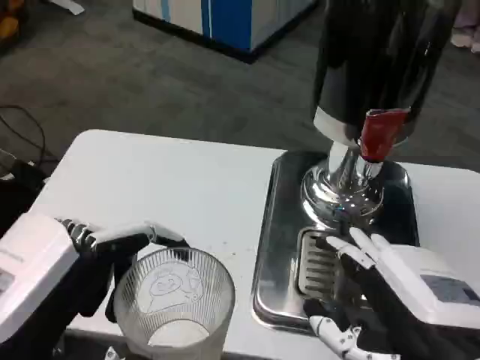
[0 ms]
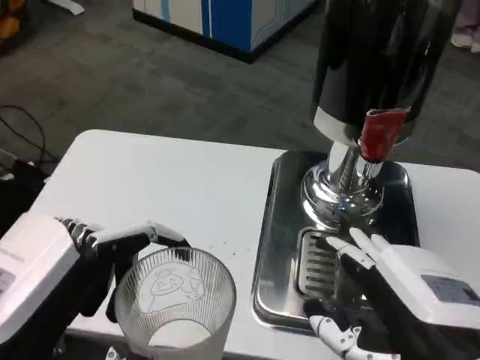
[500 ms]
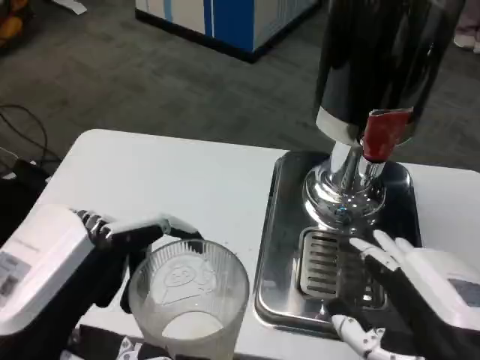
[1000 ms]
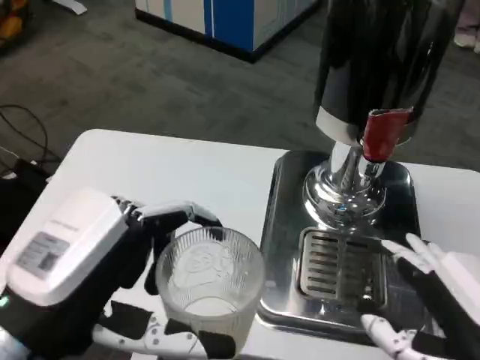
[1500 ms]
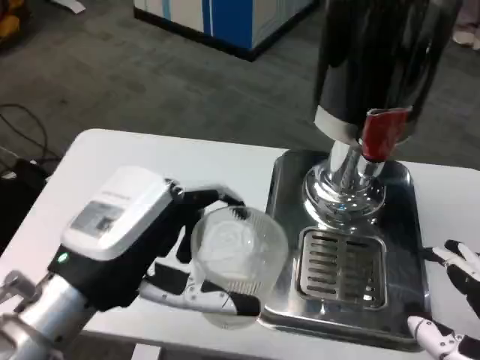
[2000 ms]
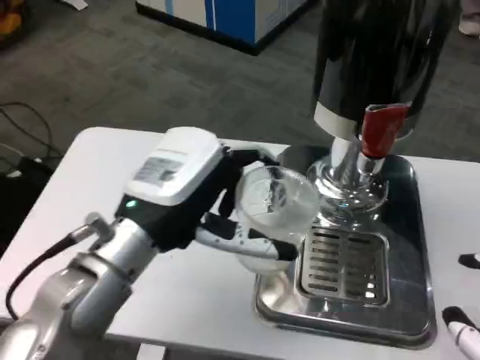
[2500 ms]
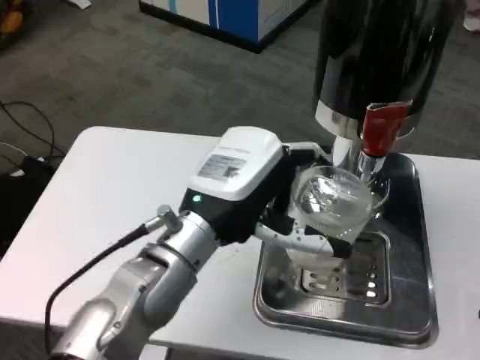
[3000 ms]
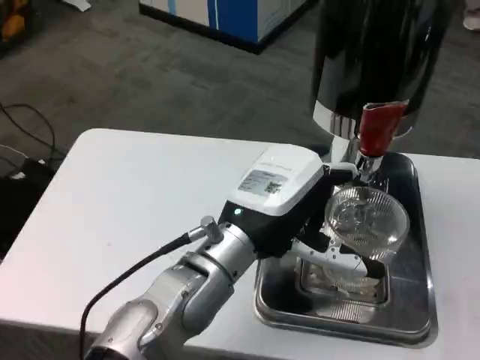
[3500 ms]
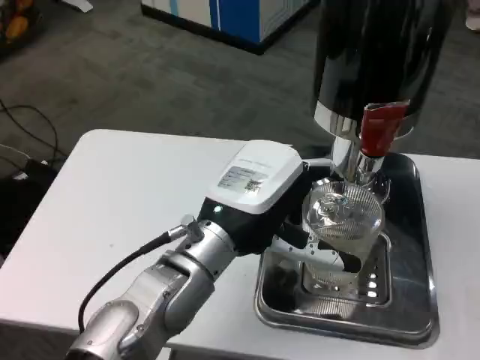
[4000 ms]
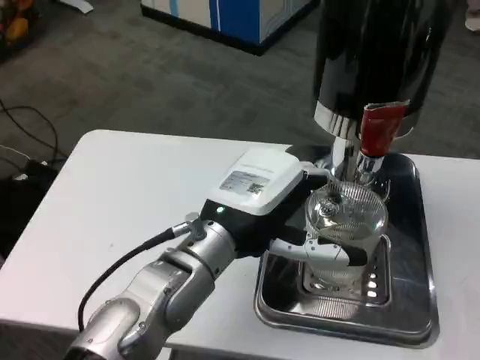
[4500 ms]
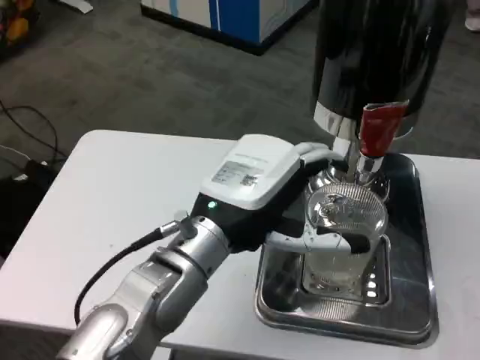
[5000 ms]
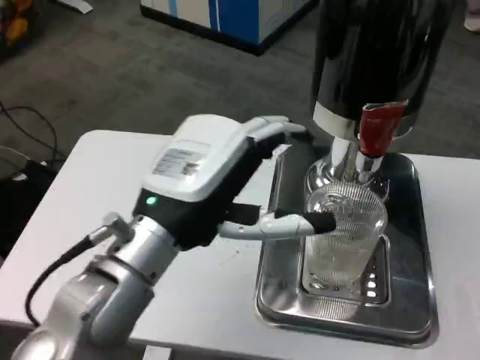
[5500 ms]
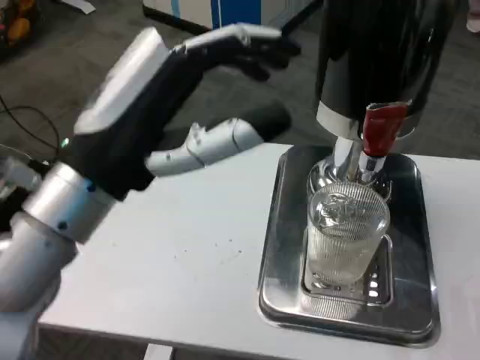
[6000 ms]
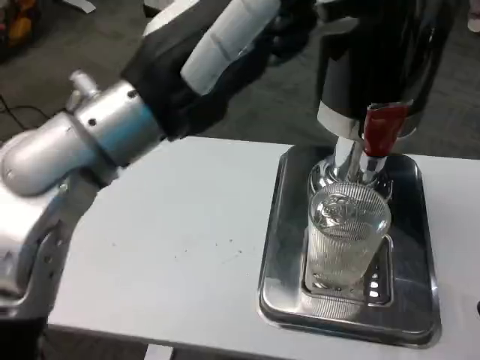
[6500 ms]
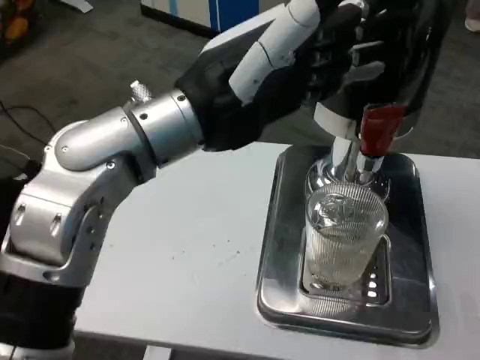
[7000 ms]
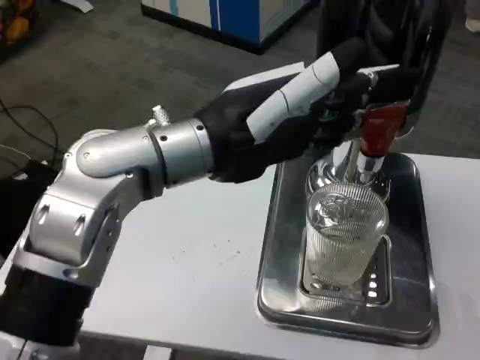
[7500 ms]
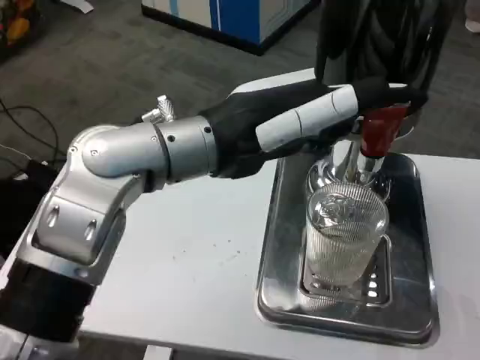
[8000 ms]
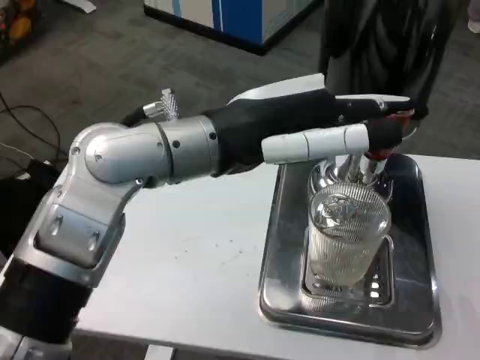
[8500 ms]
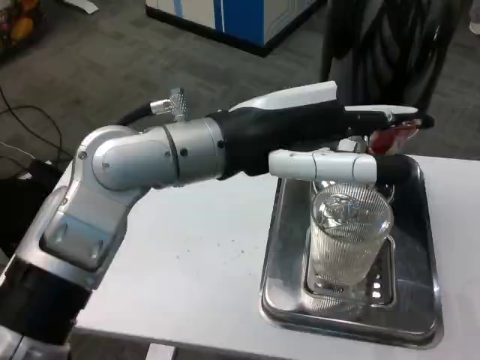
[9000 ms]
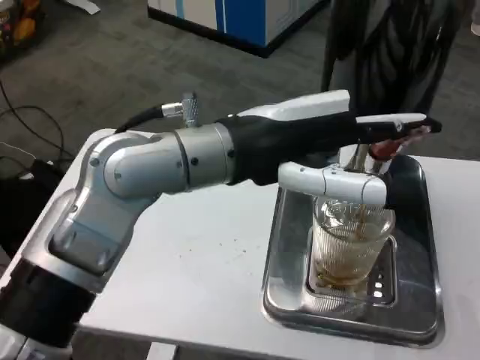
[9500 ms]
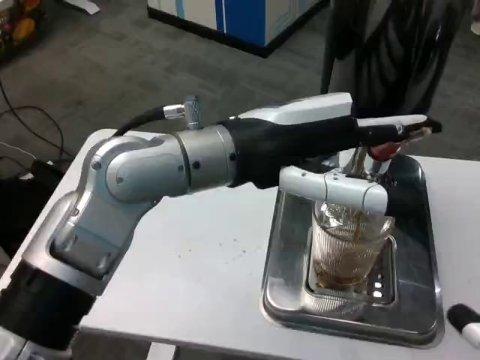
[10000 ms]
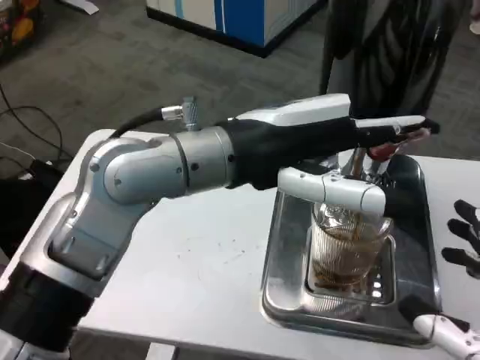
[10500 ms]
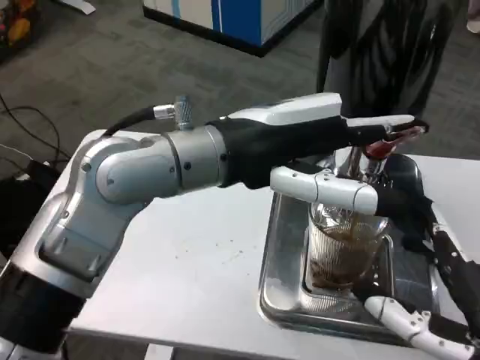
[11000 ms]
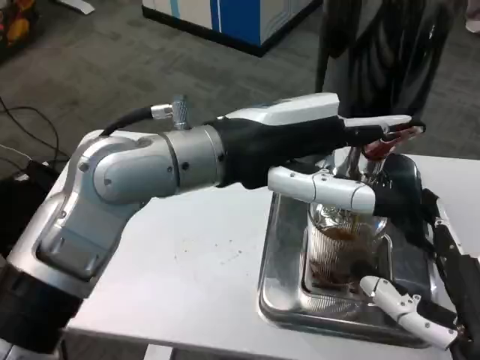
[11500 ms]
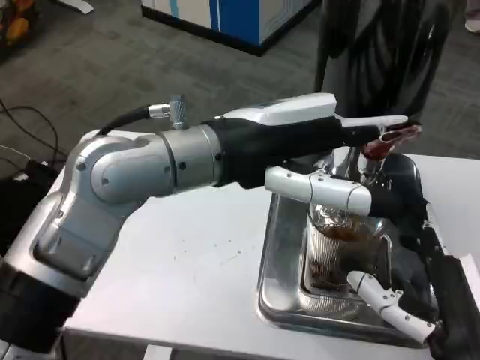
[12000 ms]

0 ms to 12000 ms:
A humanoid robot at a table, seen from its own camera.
Task of the whole recording: Grasp the cup under the faucet to collect the drink, then remove the cup.
0 ms to 2000 ms: The left hand travels forward by about 10 cm. The right hand goes roughly 5 cm to the right.
2000 ms to 4000 ms: The left hand travels to the right and forward by about 15 cm. The right hand travels to the right by roughly 5 cm.
4000 ms to 6000 ms: The left hand travels upward, to the left and backward by about 15 cm.
6000 ms to 8000 ms: The left hand heads forward and to the right, covering approximately 10 cm.
10000 ms to 12000 ms: The right hand moves to the left, forward and downward, roughly 15 cm.

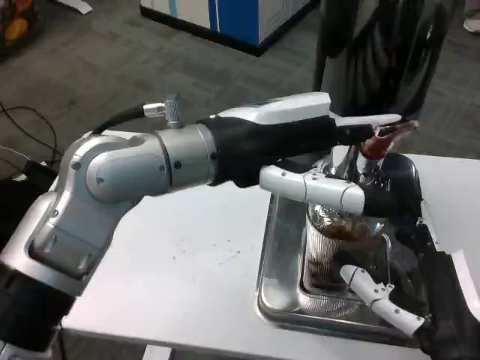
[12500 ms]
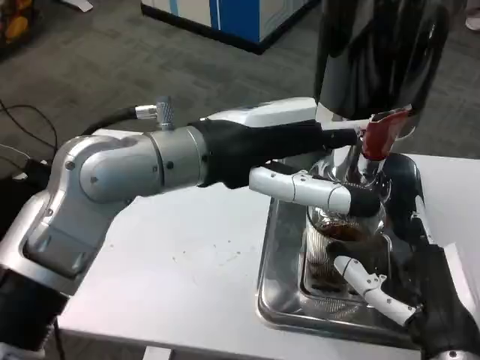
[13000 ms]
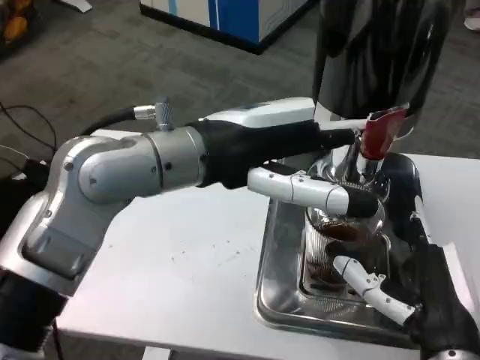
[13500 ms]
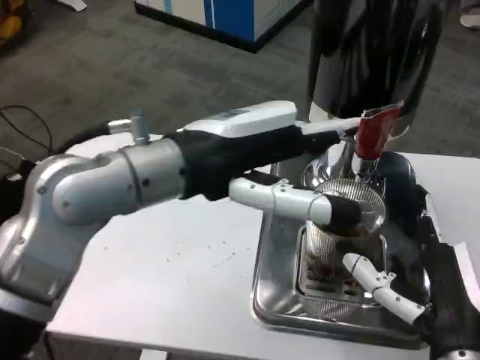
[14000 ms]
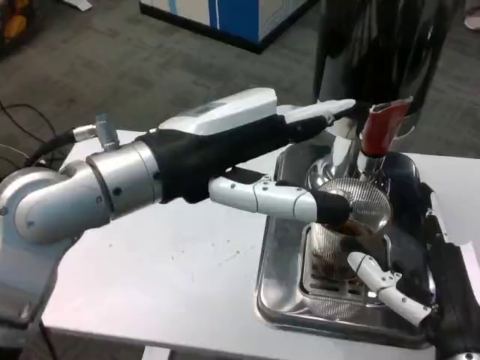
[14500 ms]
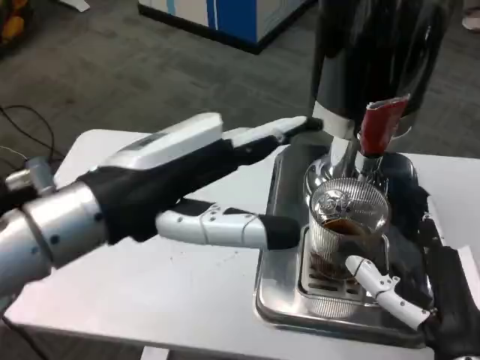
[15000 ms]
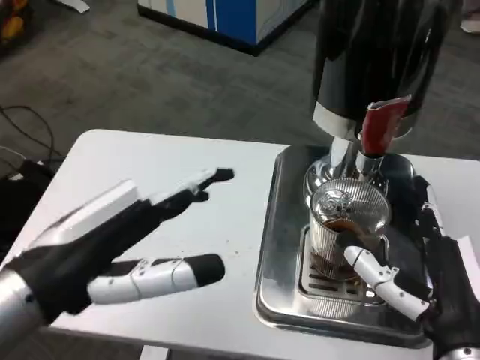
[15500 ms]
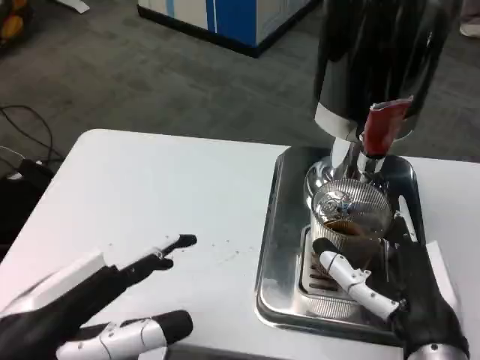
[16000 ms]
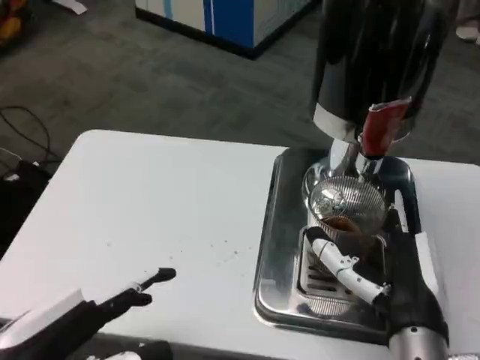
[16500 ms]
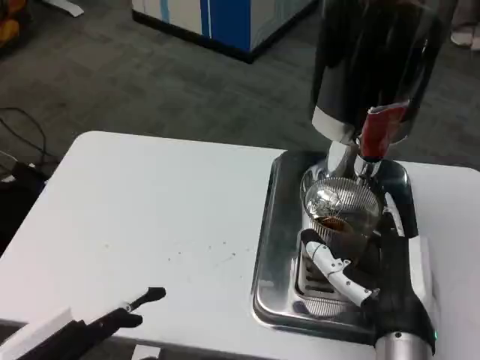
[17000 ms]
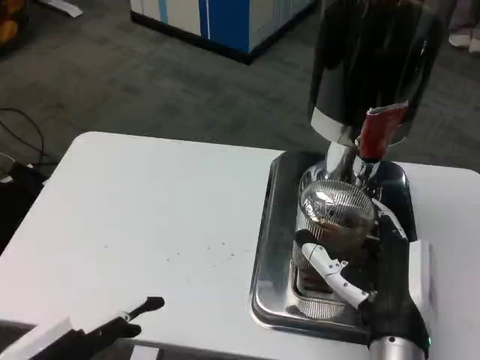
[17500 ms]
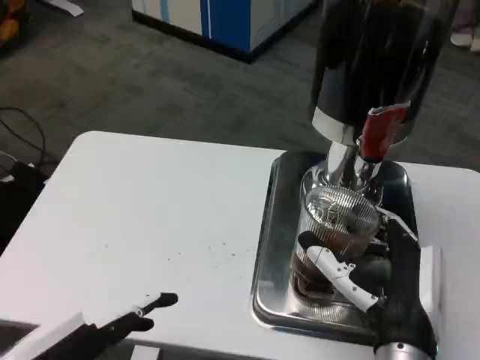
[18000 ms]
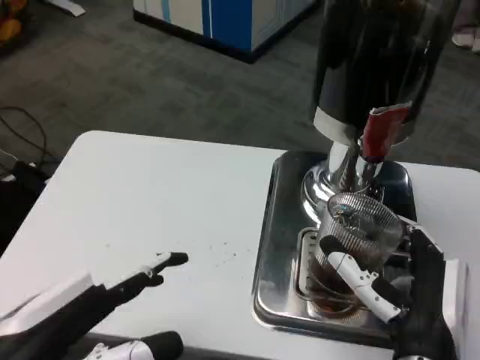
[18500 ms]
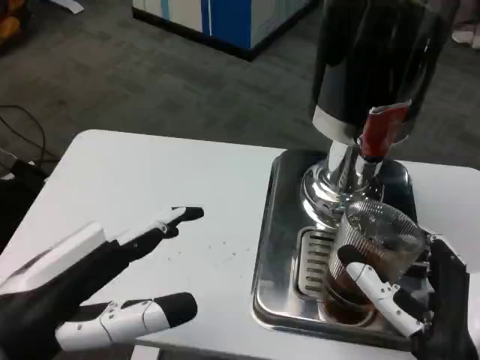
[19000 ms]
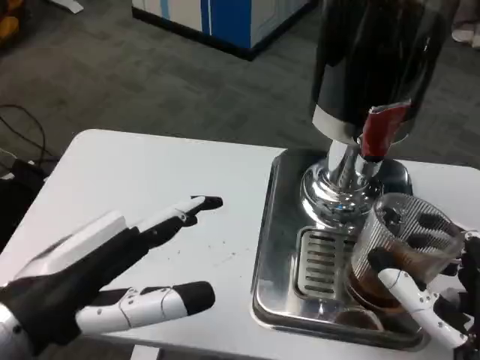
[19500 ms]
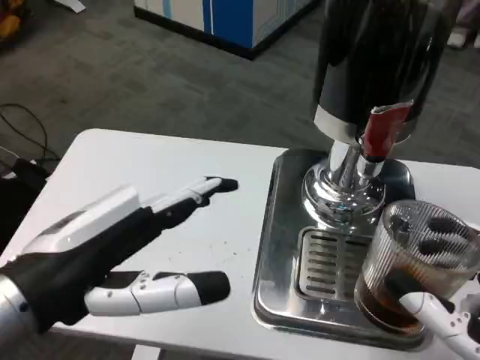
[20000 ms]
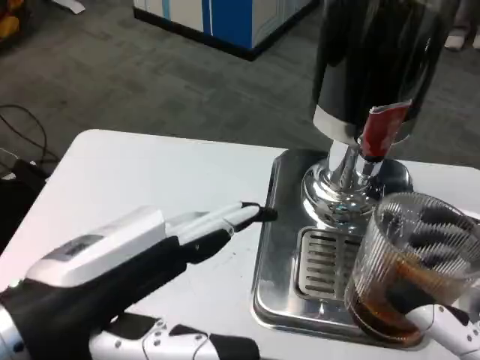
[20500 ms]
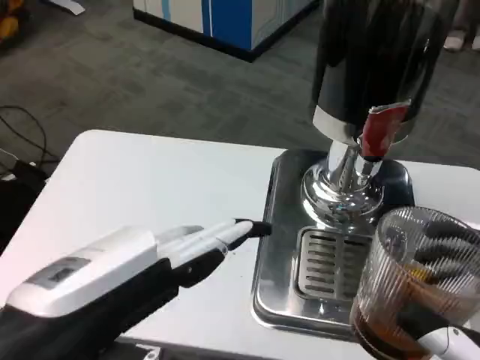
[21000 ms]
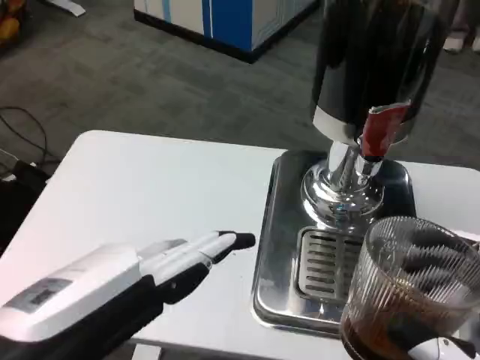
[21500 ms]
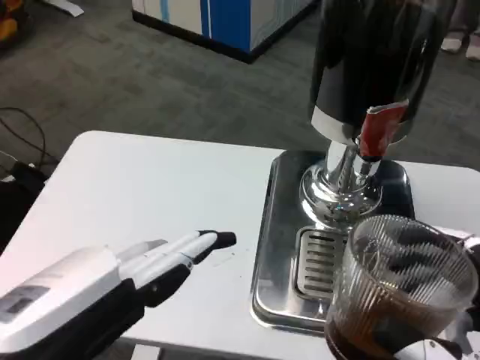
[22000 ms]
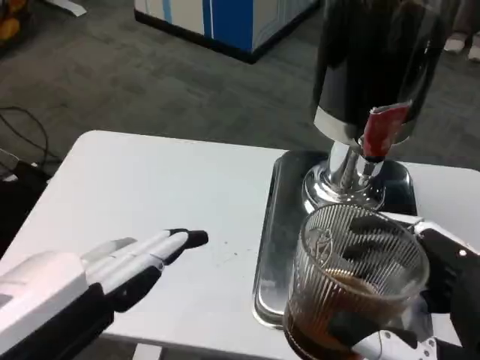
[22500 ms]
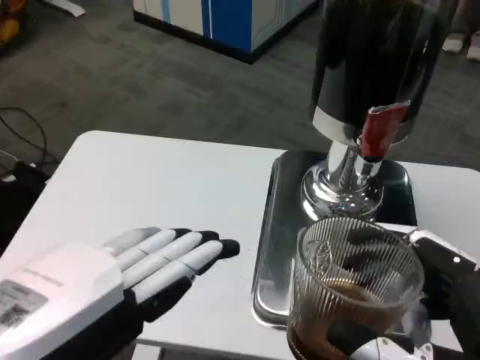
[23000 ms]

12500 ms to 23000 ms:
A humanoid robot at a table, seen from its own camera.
Task of the whole recording: Grasp the cup under the faucet to collect the drink, then remove the cup.
12500 ms to 14500 ms: The left hand moves about 5 cm.
14500 ms to 16500 ms: The left hand shifts roughly 20 cm backward, downward and to the left. Meanwhile the right hand changes place by approximately 5 cm.
19000 ms to 21000 ms: The left hand moves about 5 cm, while the right hand heads backward, to the right and upward, covering approximately 15 cm.

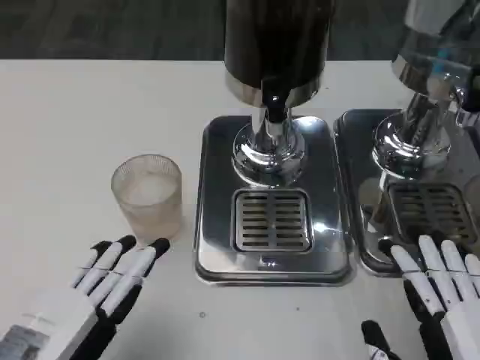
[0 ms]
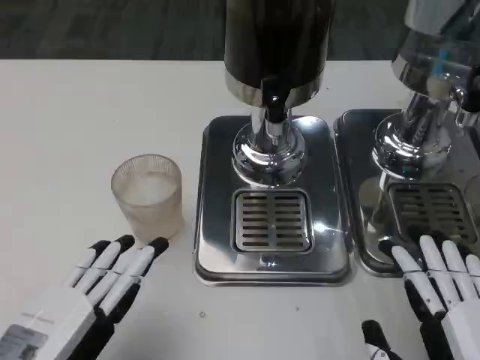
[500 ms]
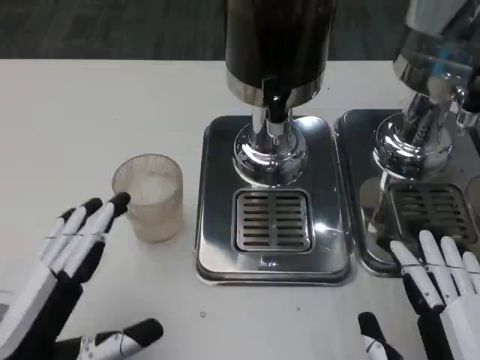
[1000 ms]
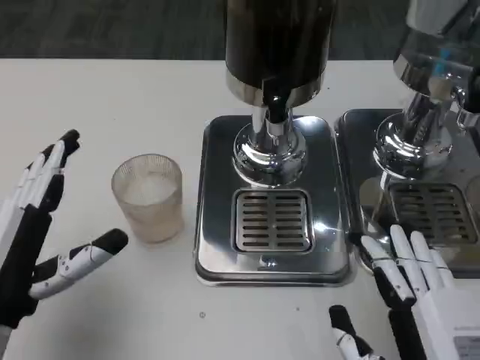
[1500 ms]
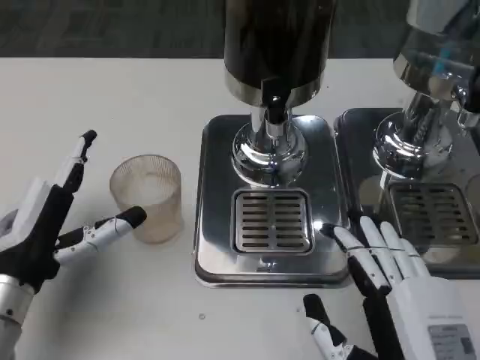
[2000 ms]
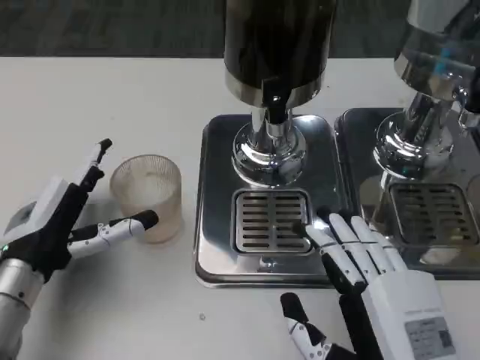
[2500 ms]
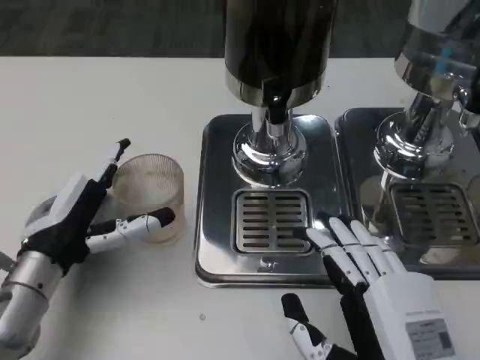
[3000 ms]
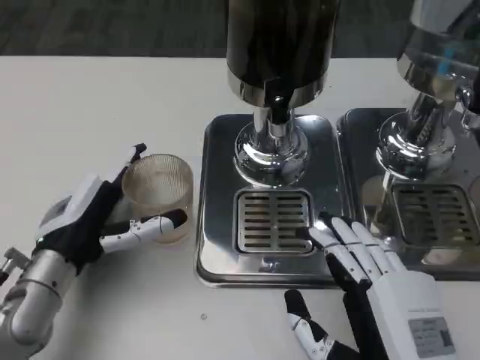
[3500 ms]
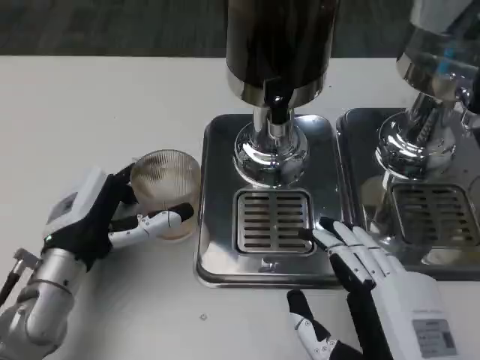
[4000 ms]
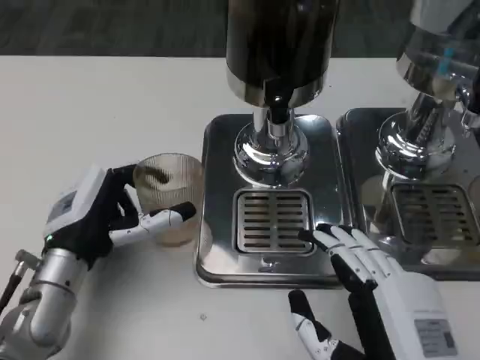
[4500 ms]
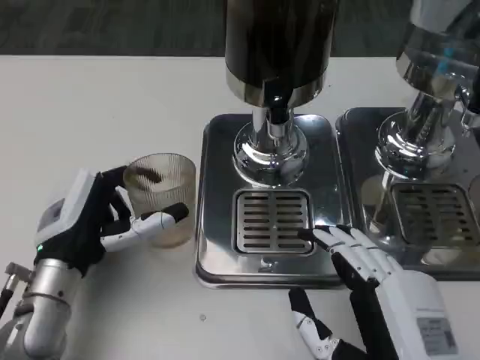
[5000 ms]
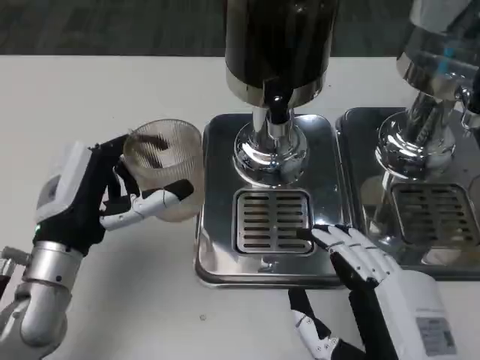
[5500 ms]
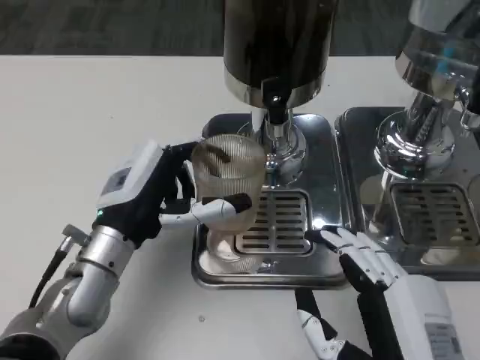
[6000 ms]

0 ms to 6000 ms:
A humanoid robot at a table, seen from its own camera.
Task of the whole recording: Grasp the cup under the faucet to collect the drink, then remove the cup.
0 ms to 2000 ms: The right hand changes place by approximately 5 cm, while the left hand heads forward, covering some 15 cm.
2000 ms to 4000 ms: The left hand changes place by about 5 cm.
